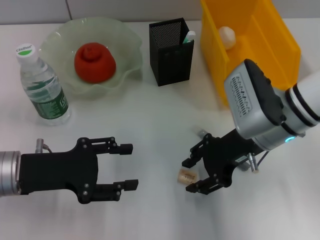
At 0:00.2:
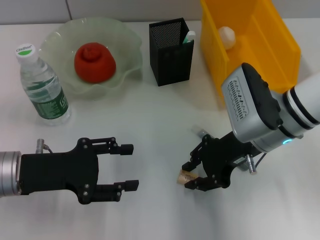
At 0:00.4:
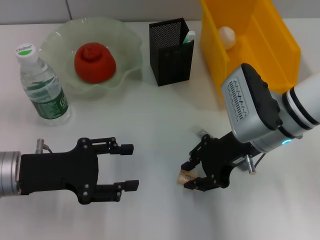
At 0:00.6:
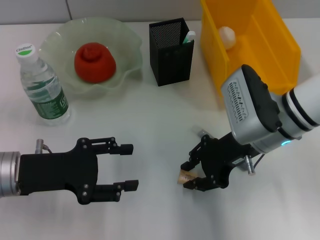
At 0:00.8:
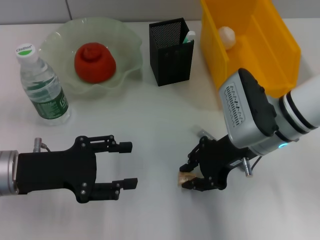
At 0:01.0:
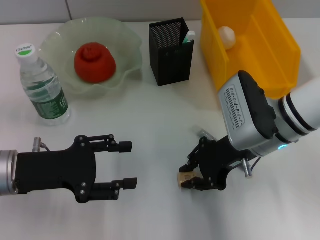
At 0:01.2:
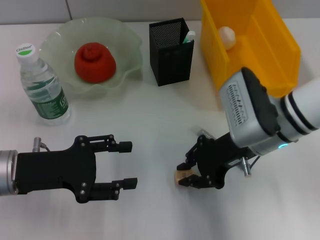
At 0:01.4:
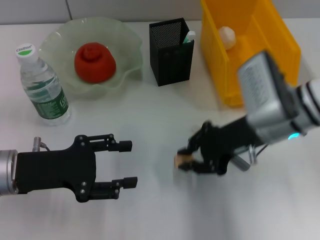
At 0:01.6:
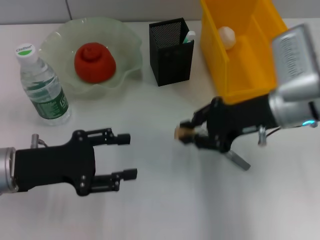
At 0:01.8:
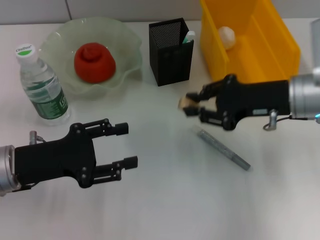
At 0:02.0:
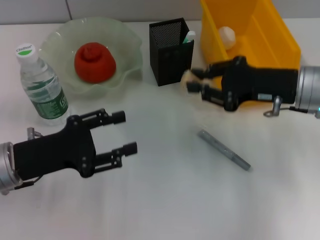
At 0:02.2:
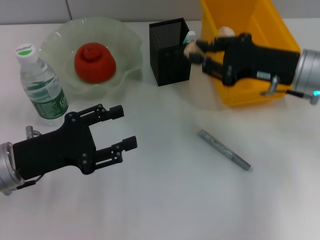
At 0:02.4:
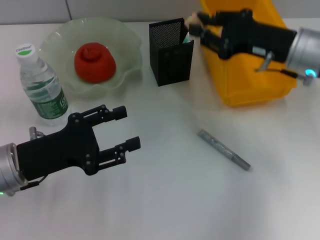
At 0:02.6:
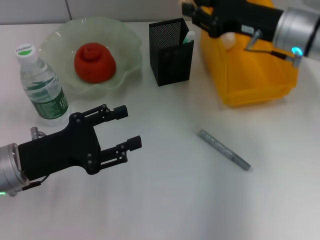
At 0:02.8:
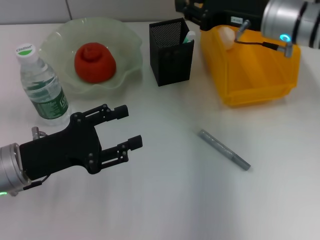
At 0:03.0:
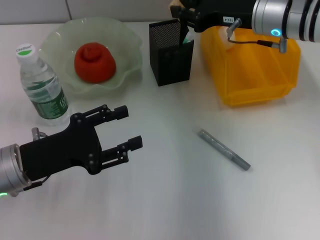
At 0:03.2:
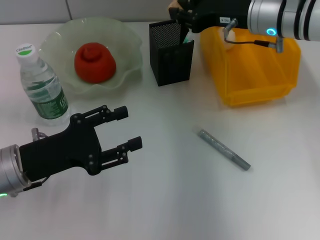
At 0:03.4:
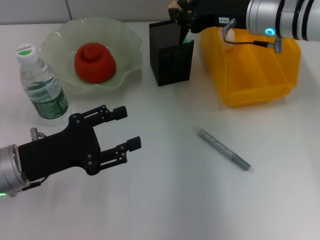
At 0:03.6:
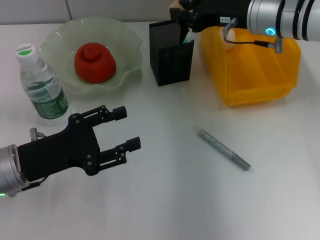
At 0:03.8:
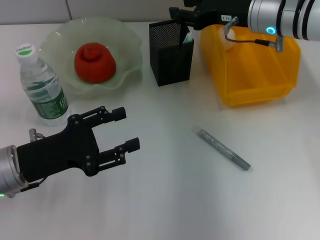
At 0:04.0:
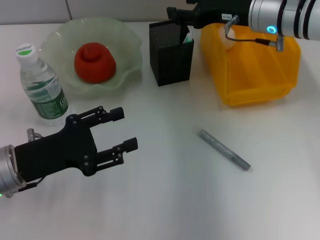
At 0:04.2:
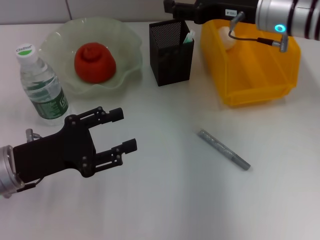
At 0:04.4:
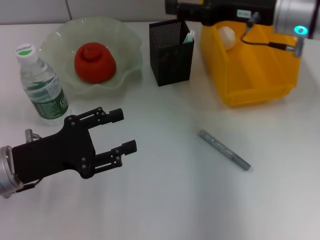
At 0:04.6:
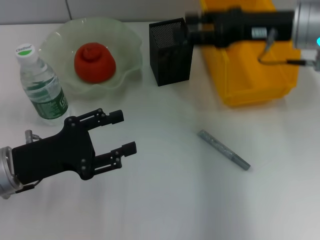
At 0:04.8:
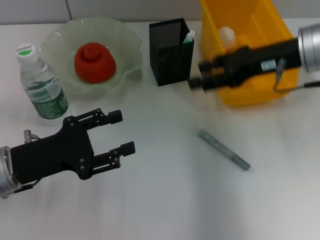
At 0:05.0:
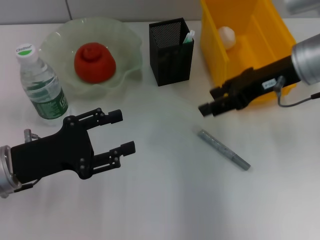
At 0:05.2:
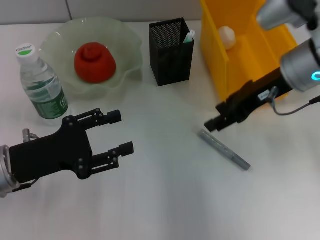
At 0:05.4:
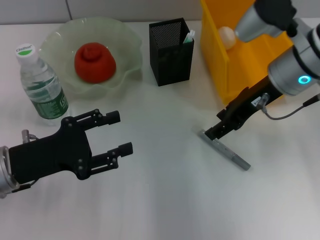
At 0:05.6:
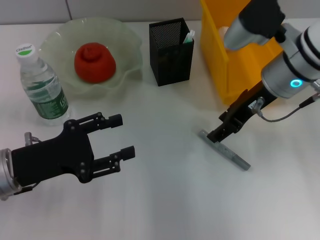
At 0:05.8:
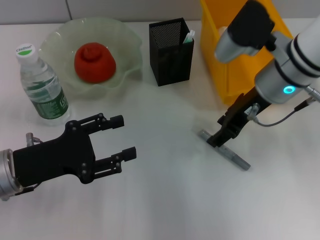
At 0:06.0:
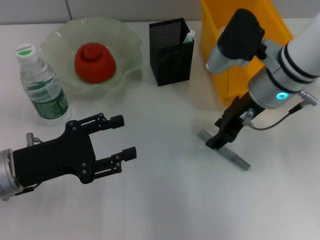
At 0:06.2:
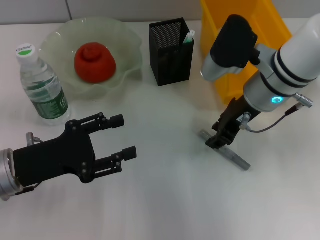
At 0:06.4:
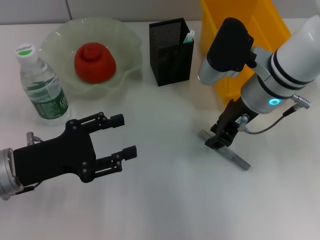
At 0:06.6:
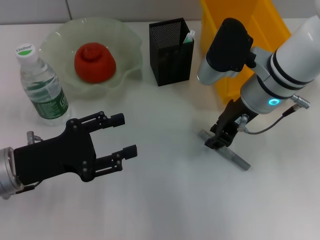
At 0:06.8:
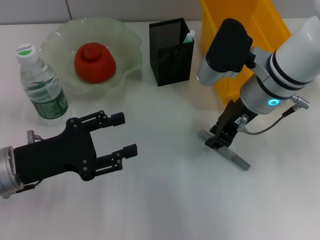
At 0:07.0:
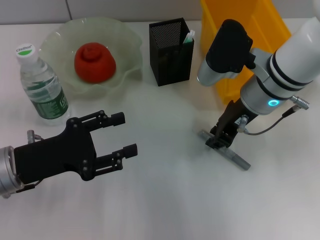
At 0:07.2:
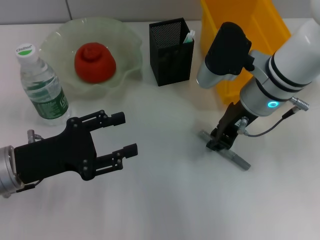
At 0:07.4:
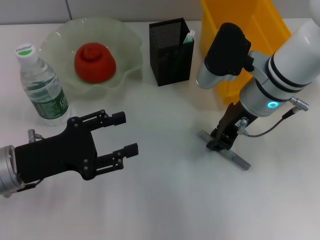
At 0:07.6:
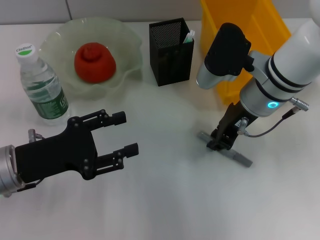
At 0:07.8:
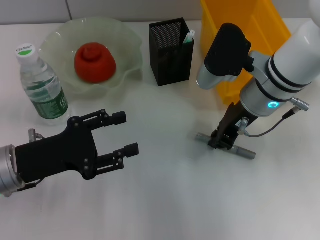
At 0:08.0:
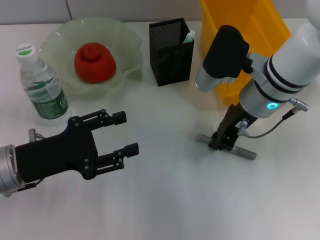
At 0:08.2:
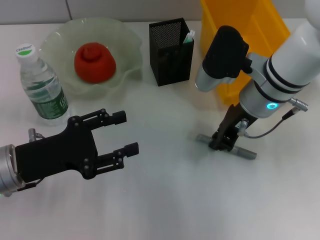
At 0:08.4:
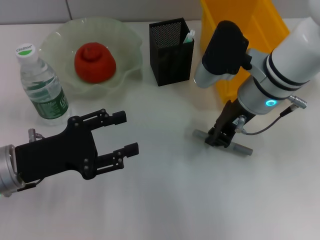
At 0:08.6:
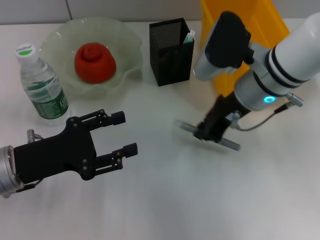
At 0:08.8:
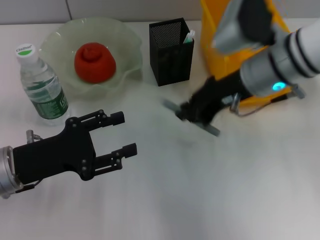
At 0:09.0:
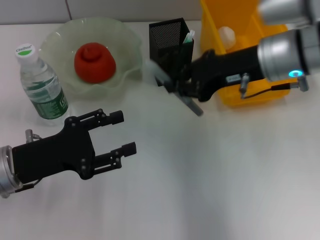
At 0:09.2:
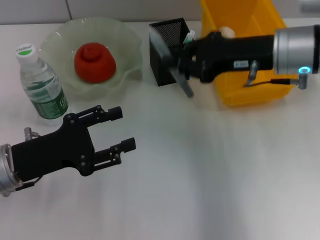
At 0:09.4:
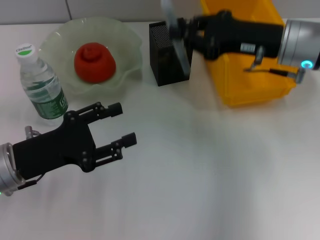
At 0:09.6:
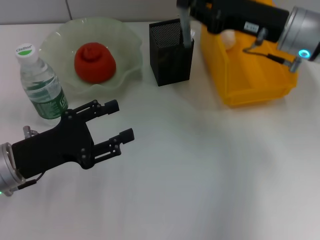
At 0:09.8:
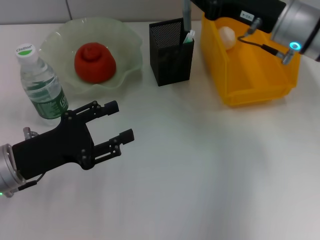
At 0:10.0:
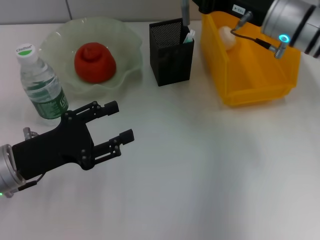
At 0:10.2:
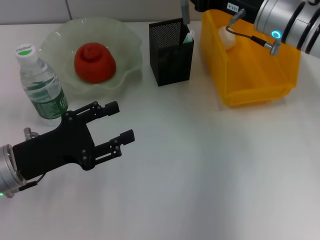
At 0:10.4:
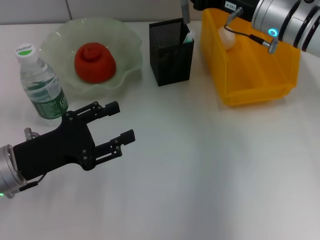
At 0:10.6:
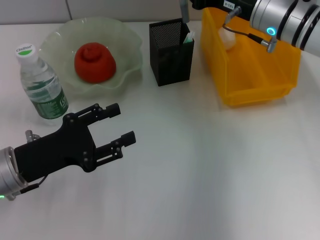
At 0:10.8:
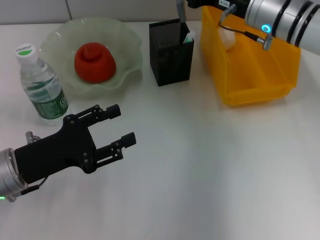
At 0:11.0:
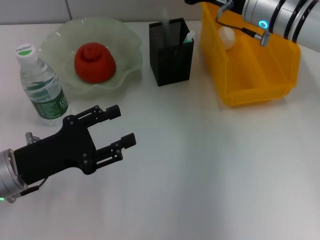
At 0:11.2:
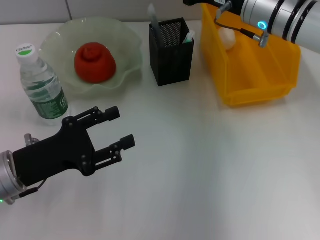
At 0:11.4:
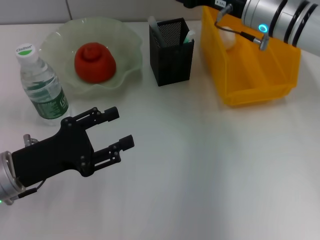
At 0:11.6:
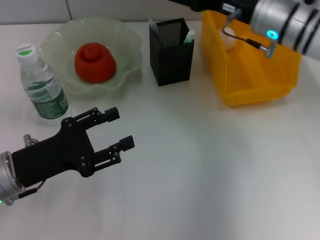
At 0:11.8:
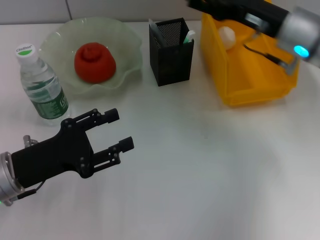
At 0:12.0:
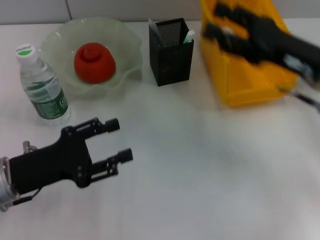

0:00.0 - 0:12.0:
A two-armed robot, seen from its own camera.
Step, 0:01.0 - 0:03.6: Put the eraser into the pen holder with the right hand.
Step, 0:04.0 - 0:08.2: Grab the gray glue with the right hand.
Step, 0:08.4 - 0:11.0: Place the gray glue into the pen holder with the right hand.
0:00.0 - 0:01.6: The right gripper closes.
0:01.6 - 0:03.0: The right gripper goes about 10 cm forward.
0:03.0 - 0:04.4: The right gripper opens.
0:04.4 - 0:06.0: The right gripper moves about 5 cm.
0:06.0 - 0:07.6: The right gripper closes.
0:07.6 - 0:09.0: The right gripper moves approximately 5 cm.
0:09.0 - 0:10.4: The right gripper is displaced forward by about 5 cm.
0:10.4 - 0:12.0: The right gripper shifts some 10 cm backward and to the right, and opens.

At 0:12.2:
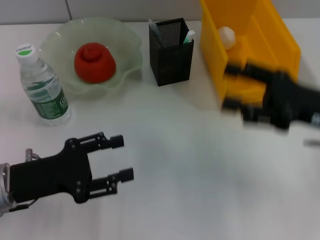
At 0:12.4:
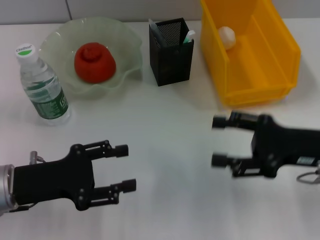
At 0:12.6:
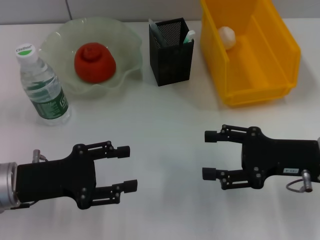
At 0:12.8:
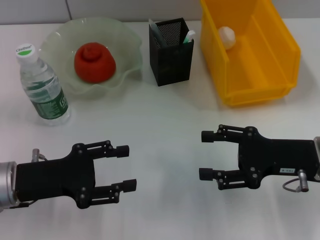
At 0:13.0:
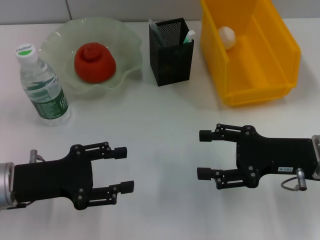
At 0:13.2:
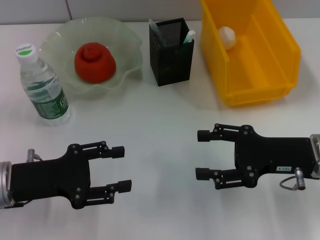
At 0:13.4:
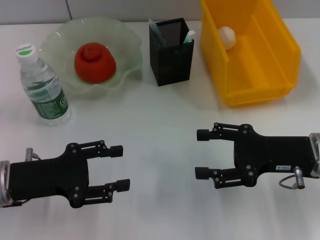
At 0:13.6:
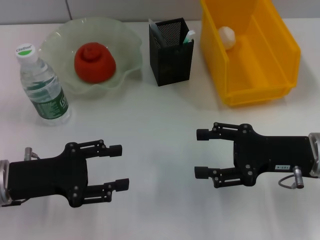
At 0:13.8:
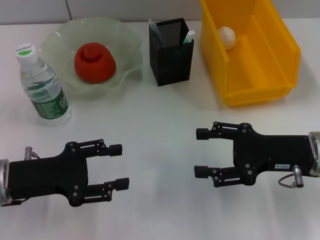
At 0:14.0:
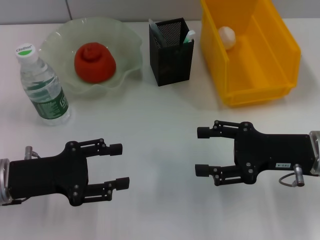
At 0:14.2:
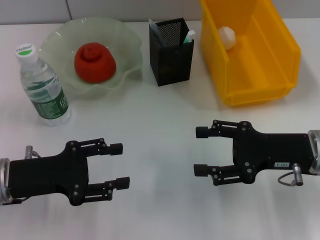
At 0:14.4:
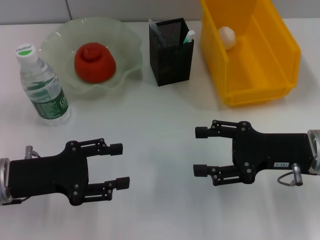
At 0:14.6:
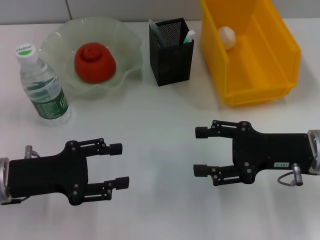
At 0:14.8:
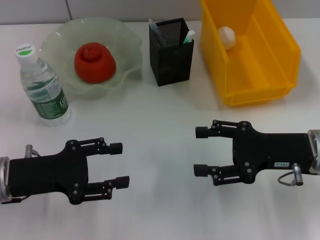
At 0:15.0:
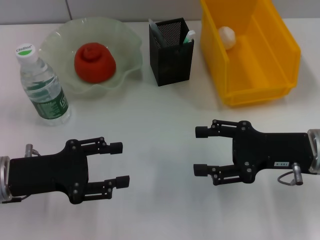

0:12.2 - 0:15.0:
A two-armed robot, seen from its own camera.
0:12.2 - 0:13.6: The grippers move only a little.
0:13.6 - 0:15.0: Both grippers stay put.
